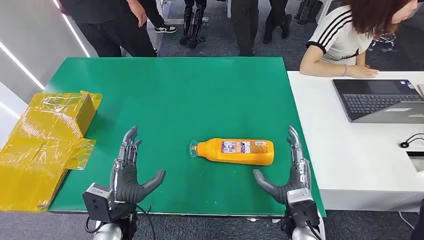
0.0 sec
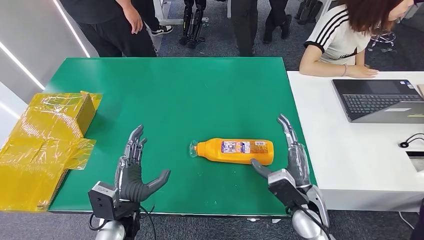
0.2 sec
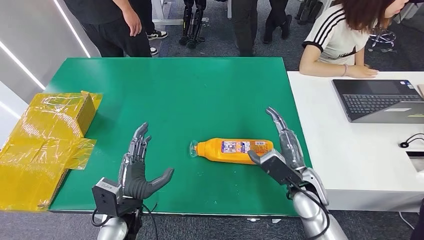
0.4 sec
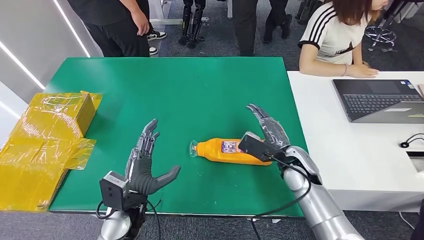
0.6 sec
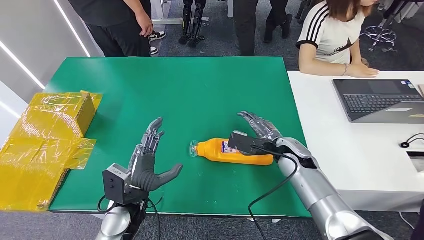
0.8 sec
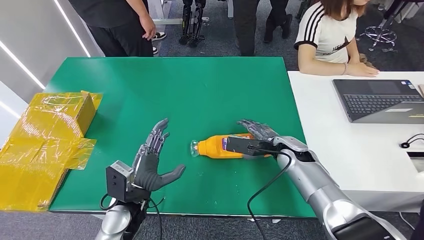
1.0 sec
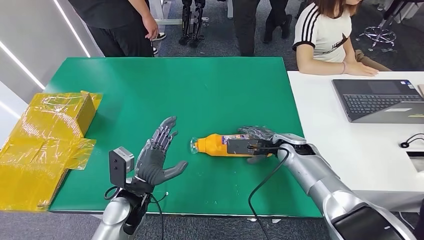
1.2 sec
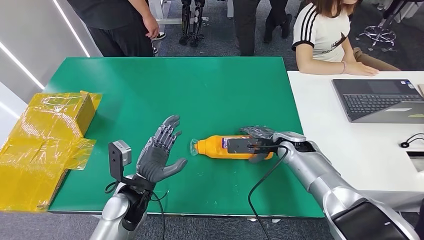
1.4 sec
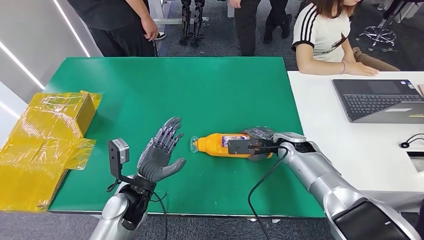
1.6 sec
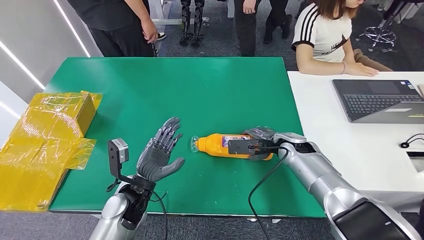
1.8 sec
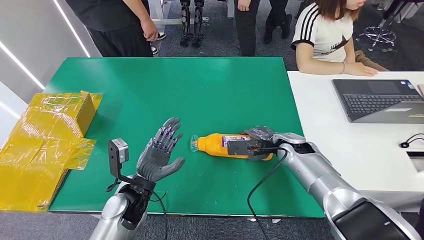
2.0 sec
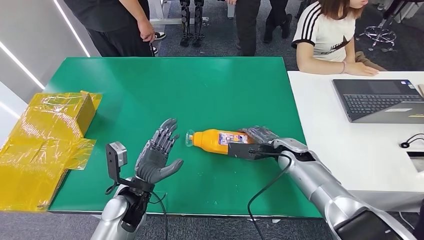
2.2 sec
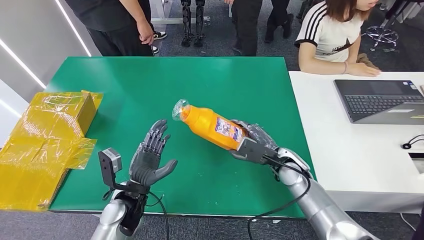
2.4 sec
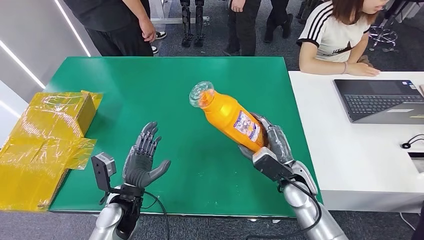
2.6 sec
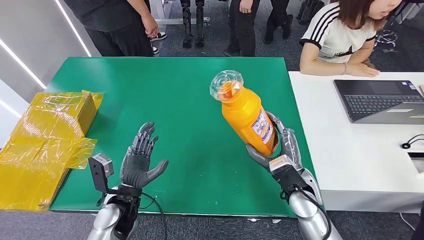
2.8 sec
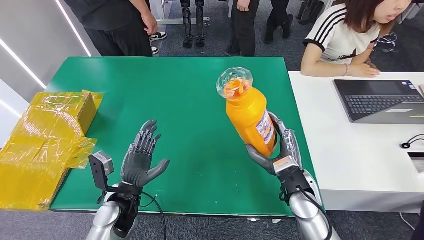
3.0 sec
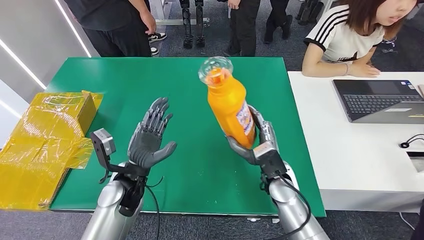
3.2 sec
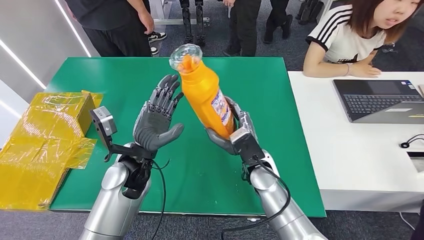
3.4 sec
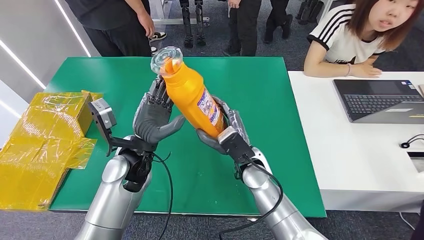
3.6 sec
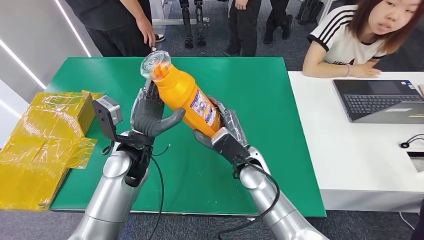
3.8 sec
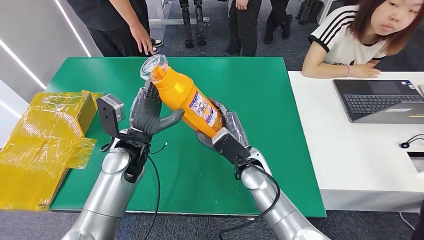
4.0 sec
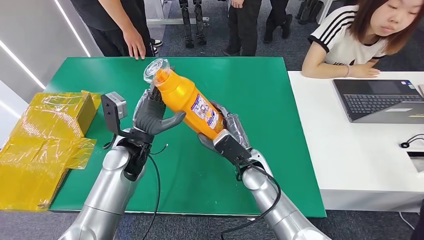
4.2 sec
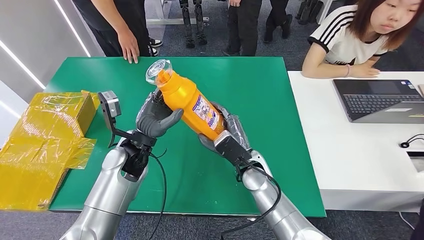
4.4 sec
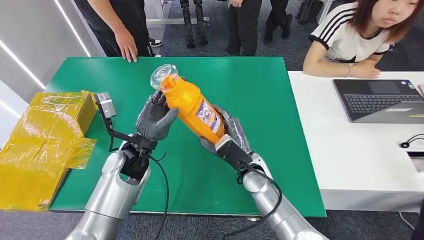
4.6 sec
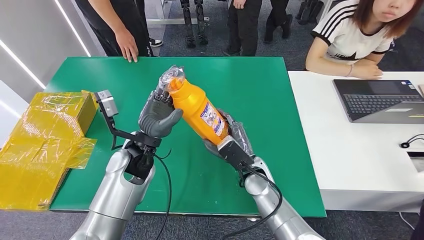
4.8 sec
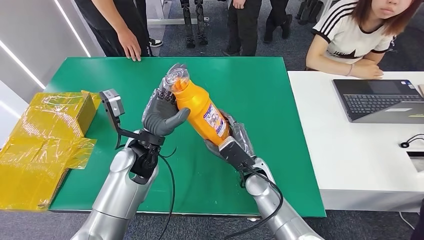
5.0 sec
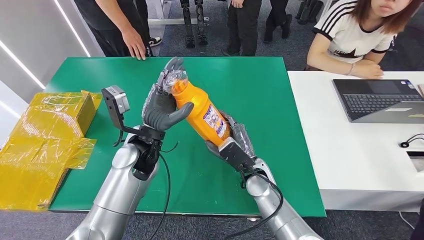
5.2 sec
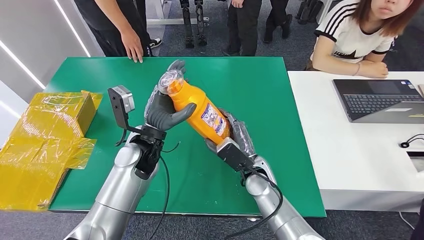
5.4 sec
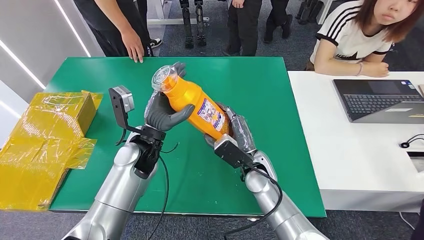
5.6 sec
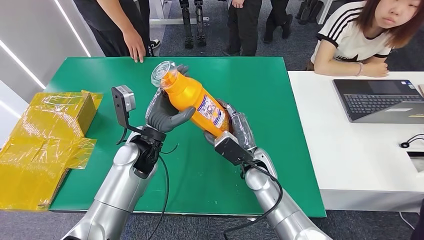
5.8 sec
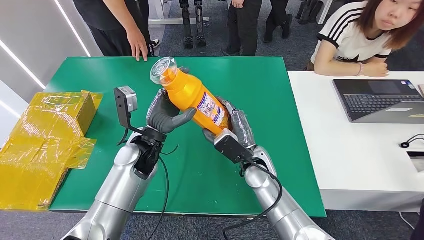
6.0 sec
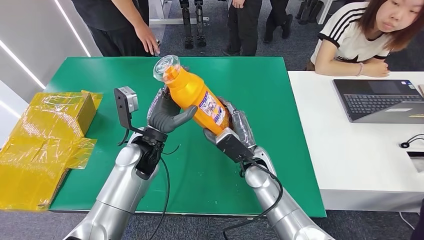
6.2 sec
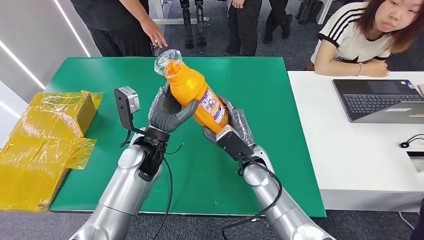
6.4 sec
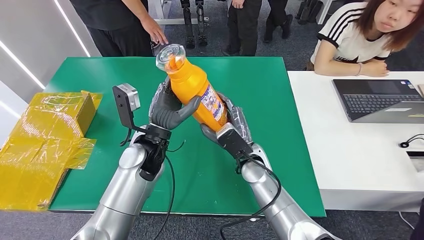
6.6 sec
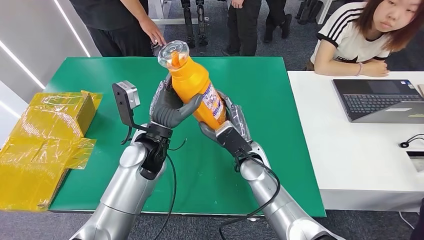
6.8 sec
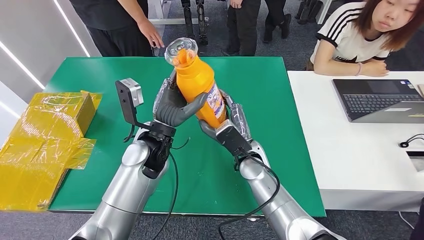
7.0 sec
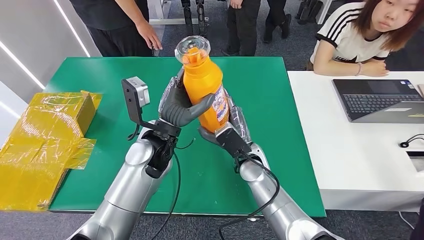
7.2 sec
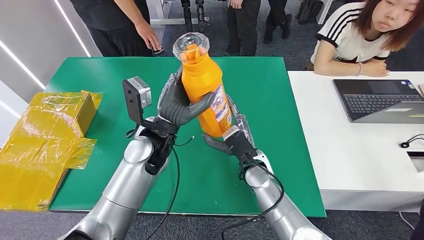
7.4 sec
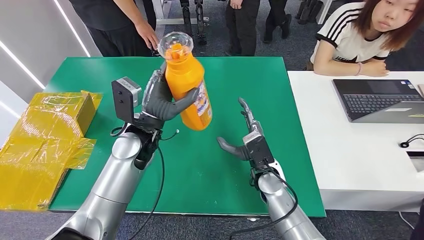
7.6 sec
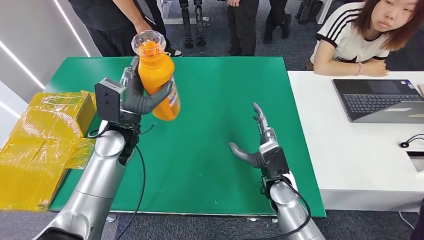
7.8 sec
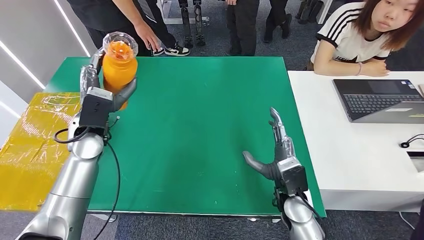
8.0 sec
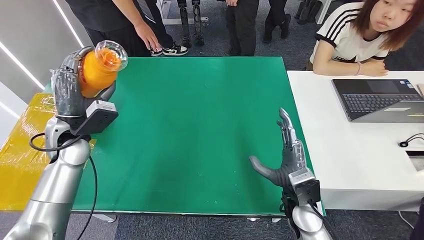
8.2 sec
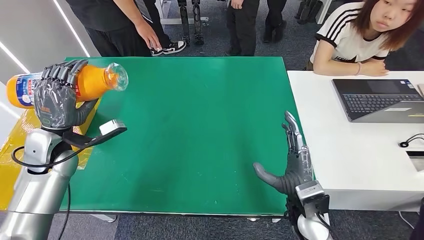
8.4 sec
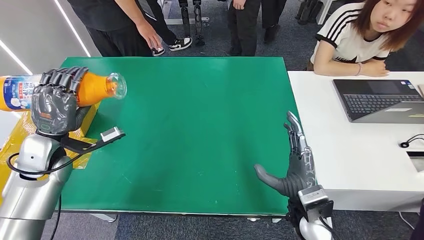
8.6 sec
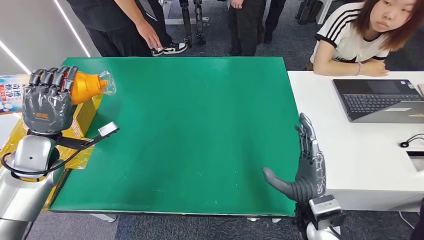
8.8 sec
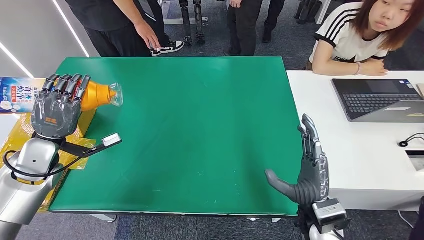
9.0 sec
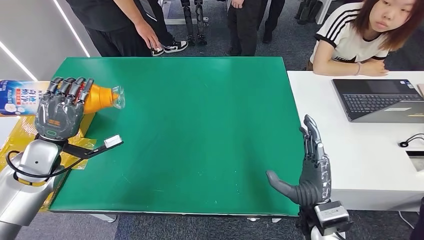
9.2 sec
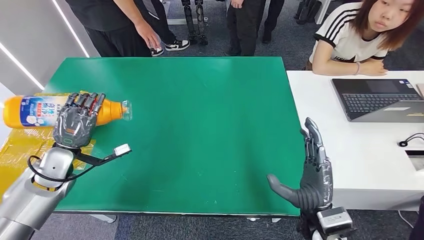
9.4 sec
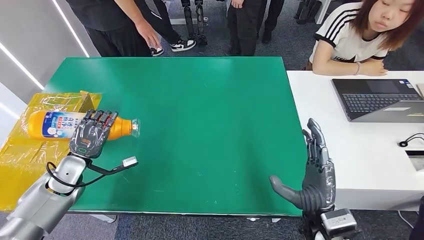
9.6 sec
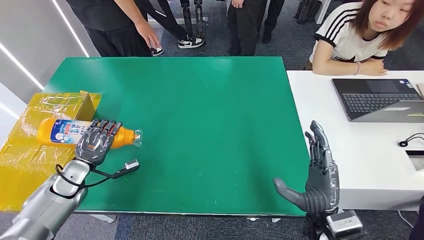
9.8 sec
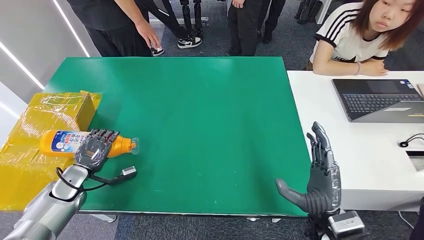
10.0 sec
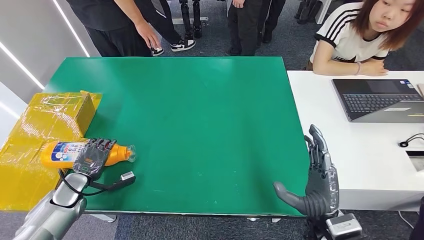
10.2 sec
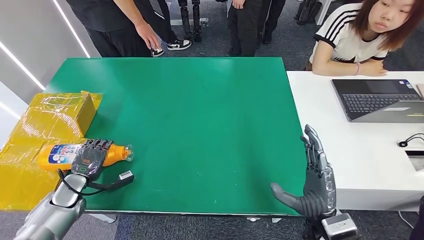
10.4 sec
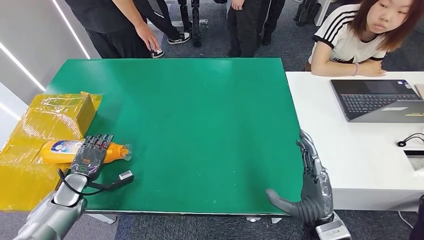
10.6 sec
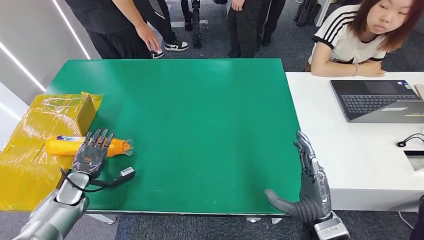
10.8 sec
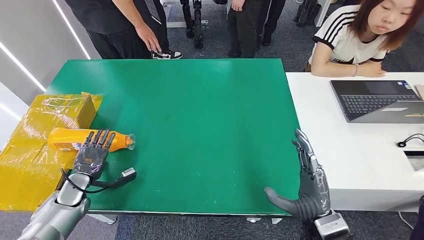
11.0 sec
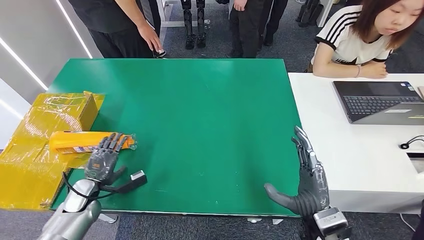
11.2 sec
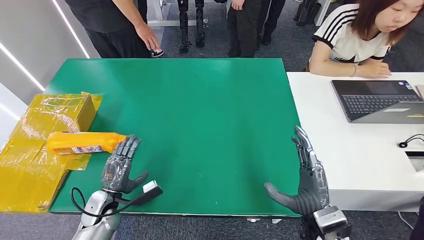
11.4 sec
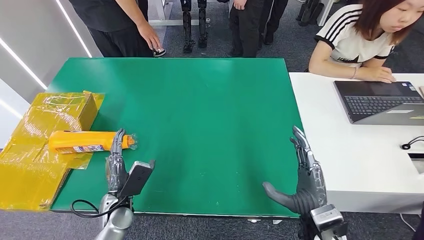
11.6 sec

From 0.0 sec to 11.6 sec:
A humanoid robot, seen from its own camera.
Step, from 0.0 sec to 3.6 sec: Pick up the bottle from the table.
Step, from 3.8 sec to 11.6 sec: Turn the bottle to the front side.
From 4.4 sec to 5.8 sec: The hands make only small movements.
From 5.8 sec to 7.2 sec: The left hand shifts by some 5 cm.

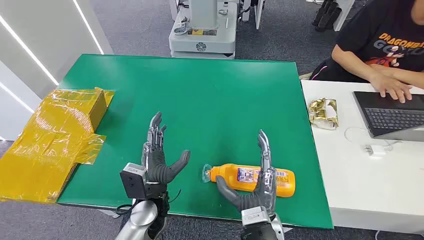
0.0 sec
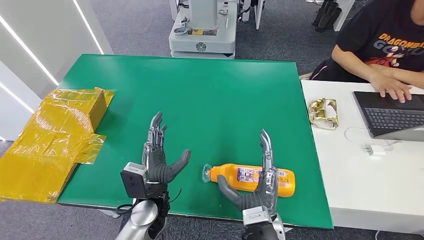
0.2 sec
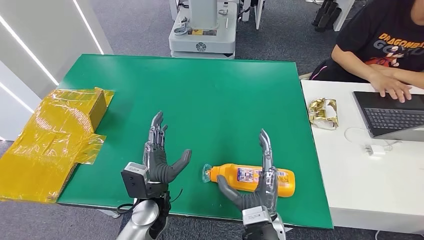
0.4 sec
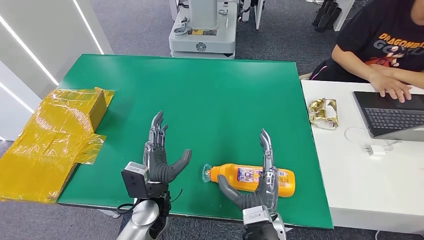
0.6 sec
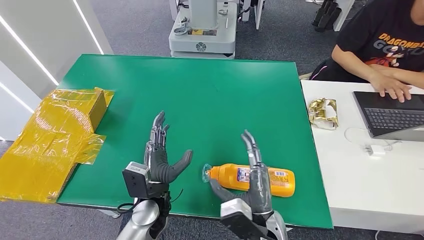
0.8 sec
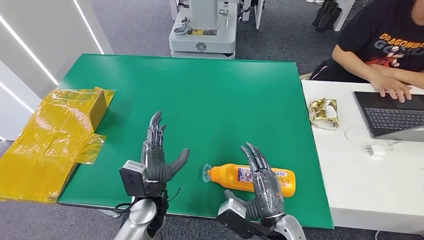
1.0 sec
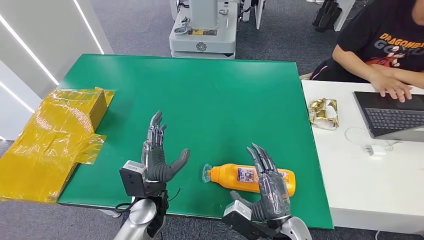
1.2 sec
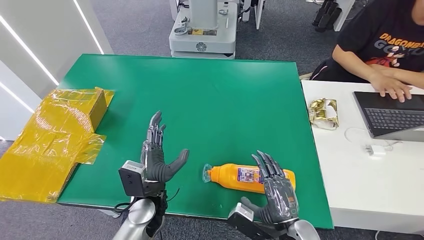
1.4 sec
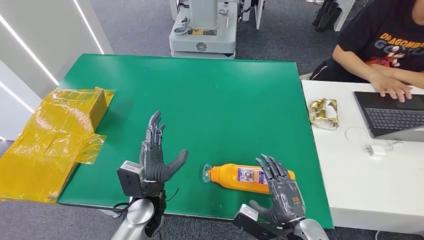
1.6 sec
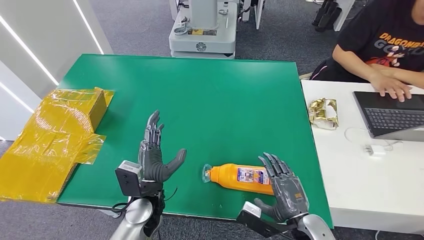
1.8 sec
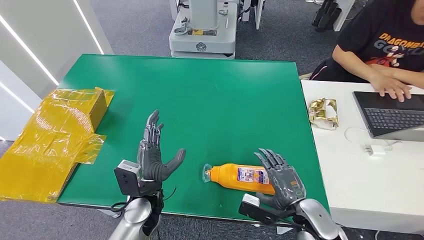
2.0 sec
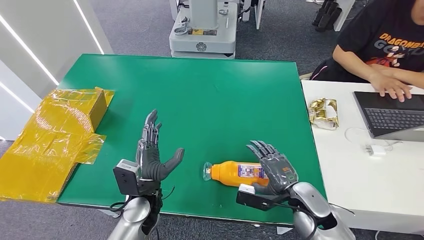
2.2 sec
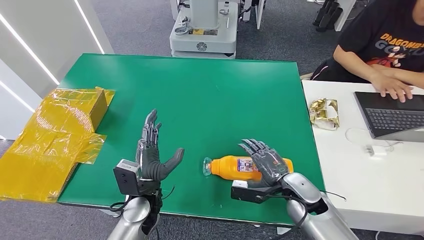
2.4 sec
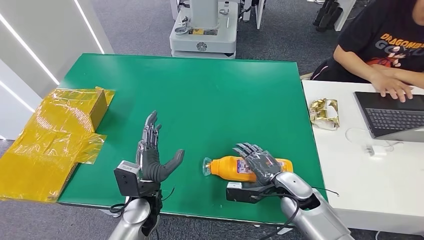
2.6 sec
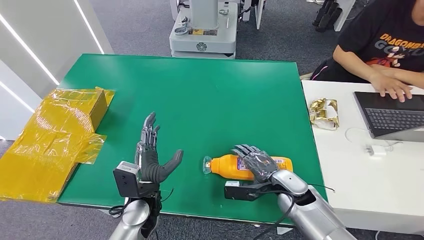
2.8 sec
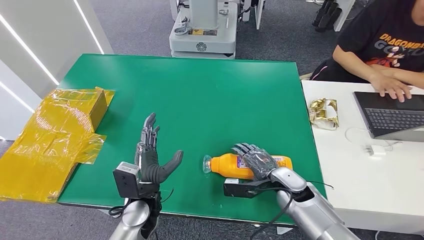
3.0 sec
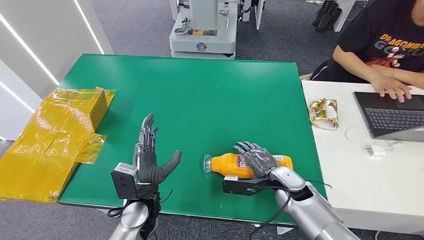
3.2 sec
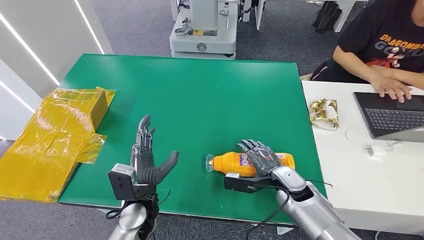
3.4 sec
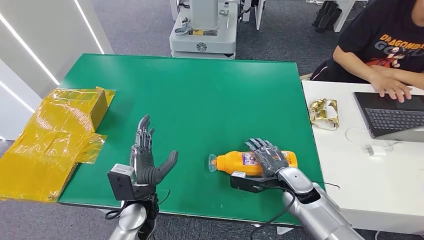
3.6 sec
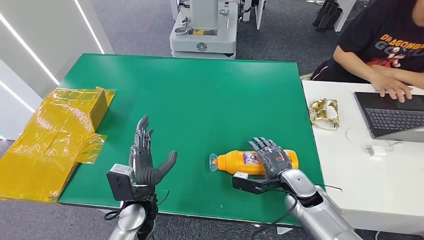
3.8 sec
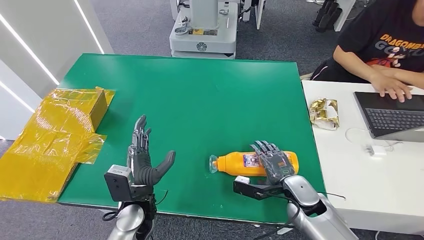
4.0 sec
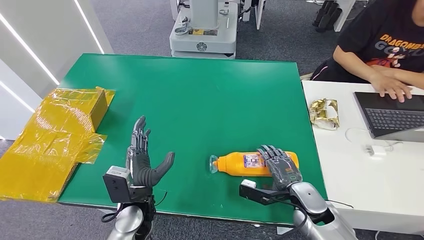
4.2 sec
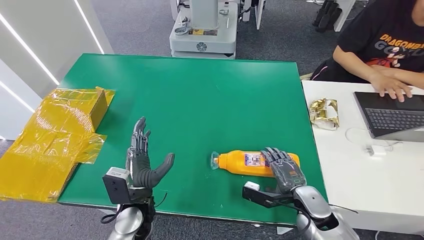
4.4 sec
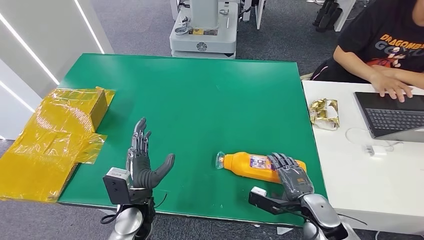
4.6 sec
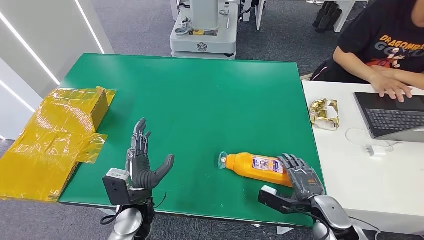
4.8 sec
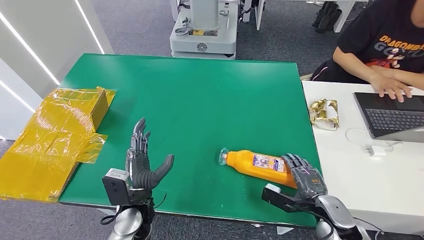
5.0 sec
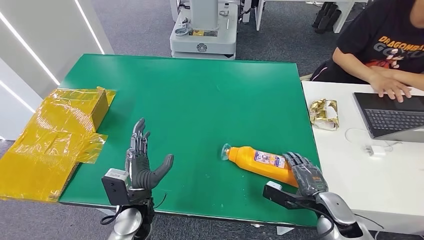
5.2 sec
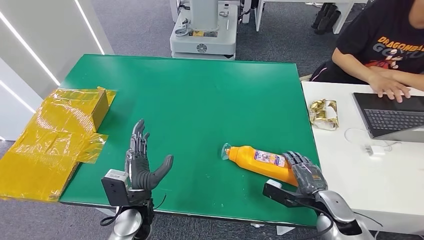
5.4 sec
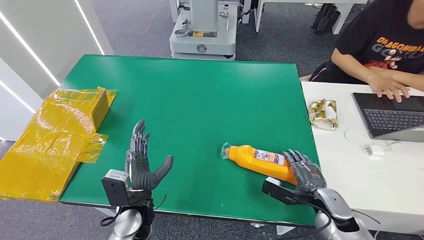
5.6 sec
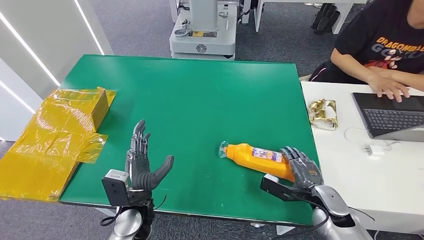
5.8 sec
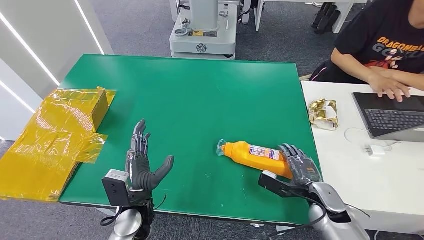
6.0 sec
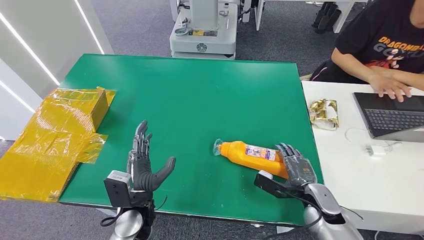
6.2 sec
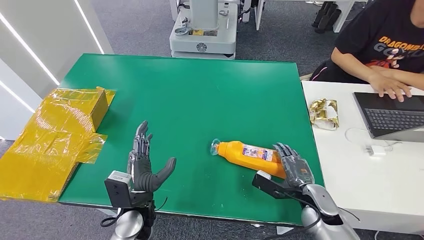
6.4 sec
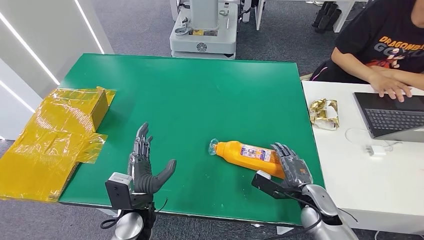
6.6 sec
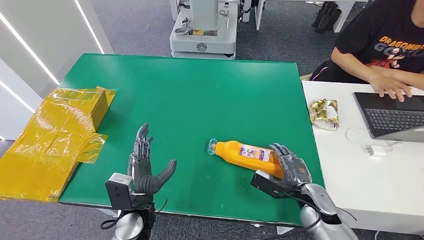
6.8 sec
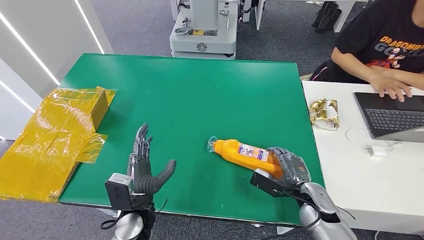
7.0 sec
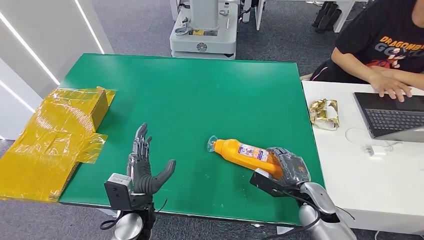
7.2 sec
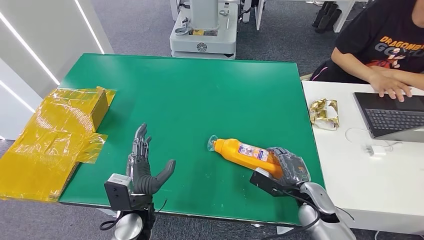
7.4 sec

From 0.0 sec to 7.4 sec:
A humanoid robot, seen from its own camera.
From 1.4 sec to 3.0 sec: The right hand is displaced forward by roughly 15 cm.
From 3.0 sec to 4.4 sec: The right hand goes about 10 cm backward and to the right.
From 4.4 sec to 7.4 sec: There are only small adjustments of the hands.
